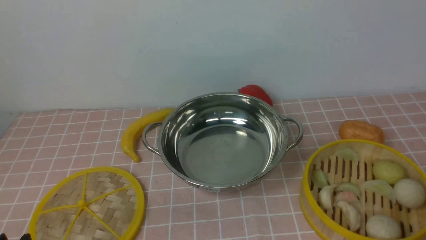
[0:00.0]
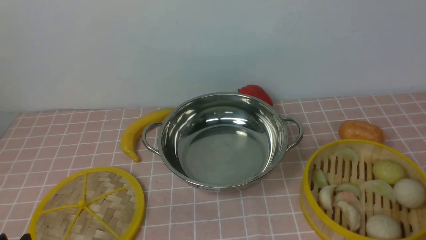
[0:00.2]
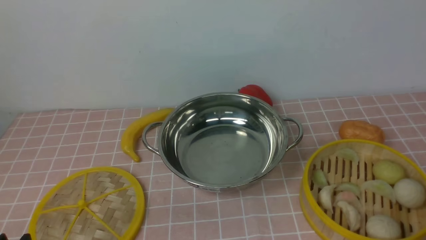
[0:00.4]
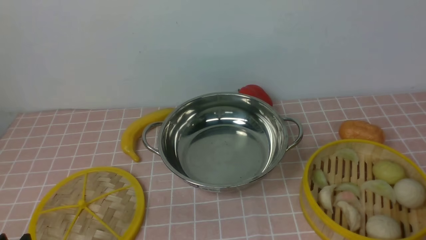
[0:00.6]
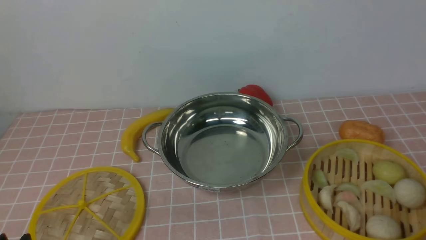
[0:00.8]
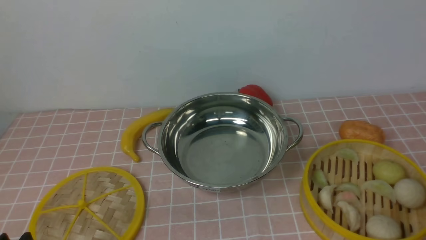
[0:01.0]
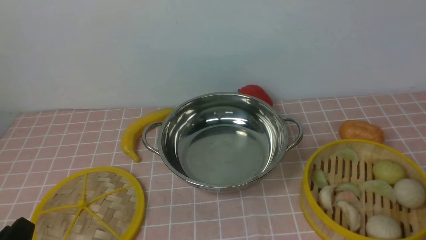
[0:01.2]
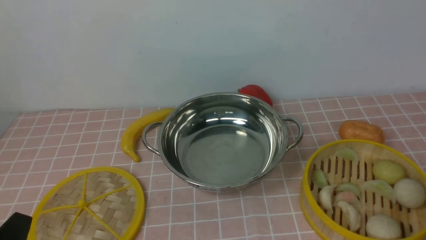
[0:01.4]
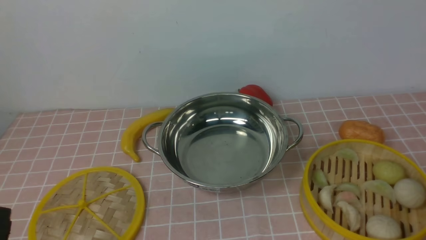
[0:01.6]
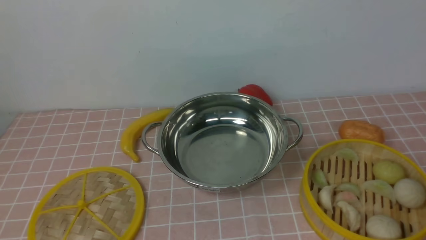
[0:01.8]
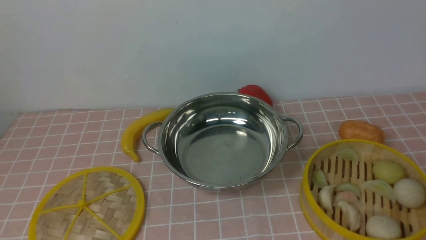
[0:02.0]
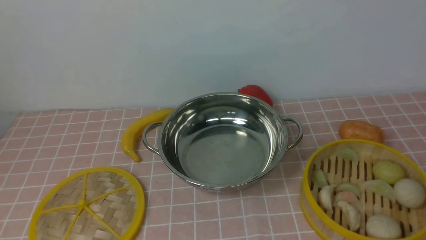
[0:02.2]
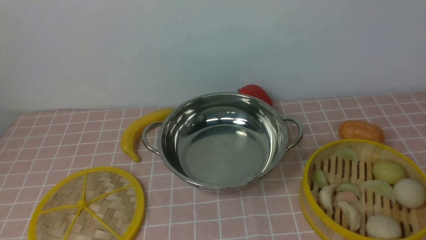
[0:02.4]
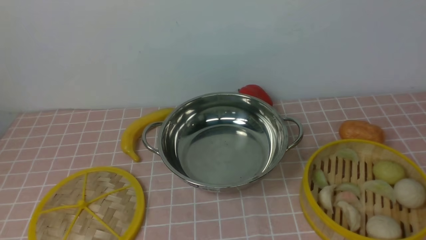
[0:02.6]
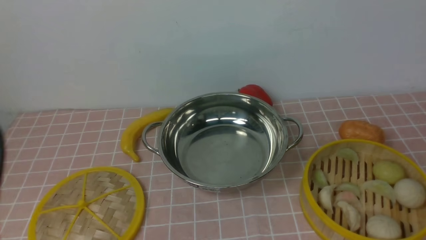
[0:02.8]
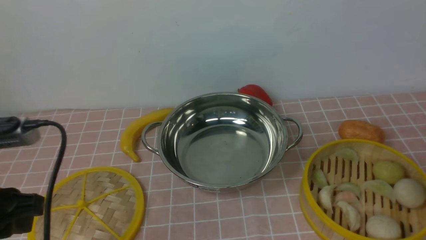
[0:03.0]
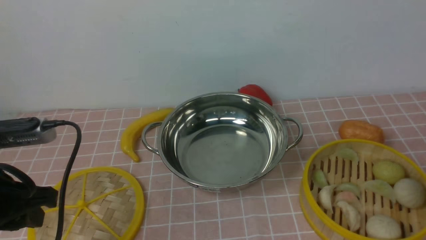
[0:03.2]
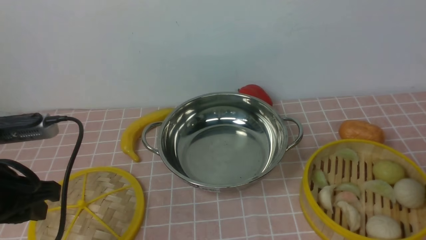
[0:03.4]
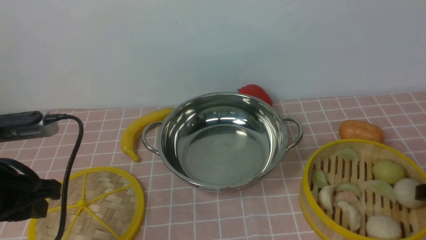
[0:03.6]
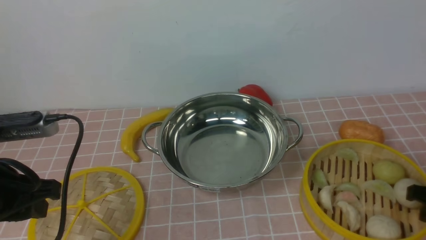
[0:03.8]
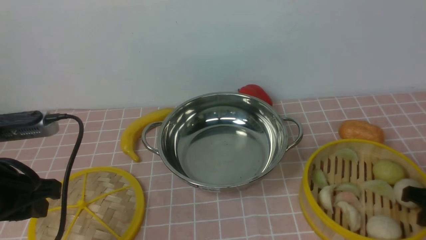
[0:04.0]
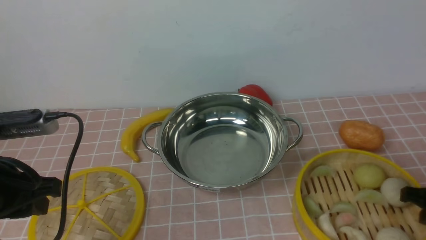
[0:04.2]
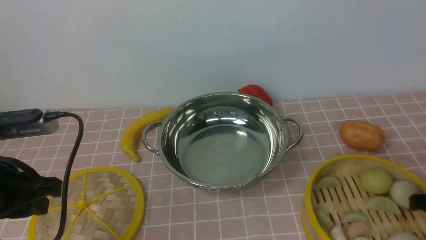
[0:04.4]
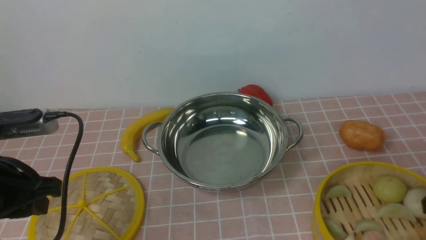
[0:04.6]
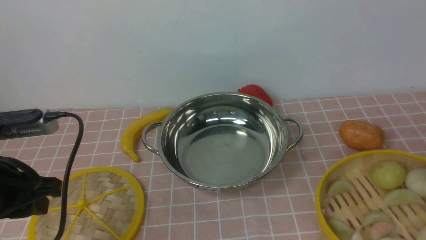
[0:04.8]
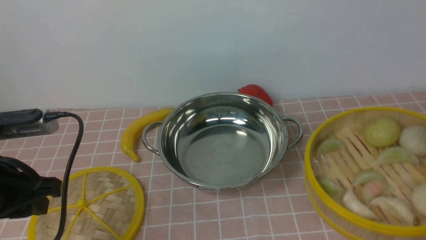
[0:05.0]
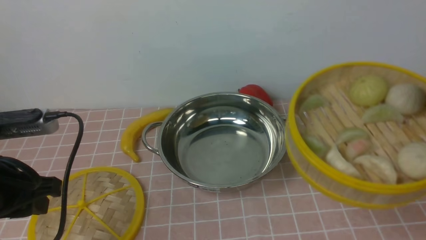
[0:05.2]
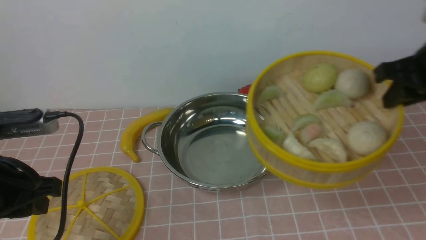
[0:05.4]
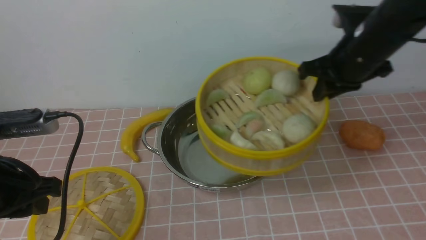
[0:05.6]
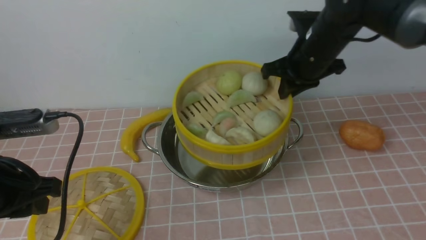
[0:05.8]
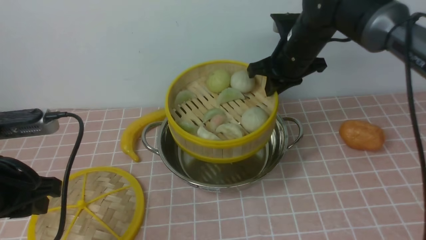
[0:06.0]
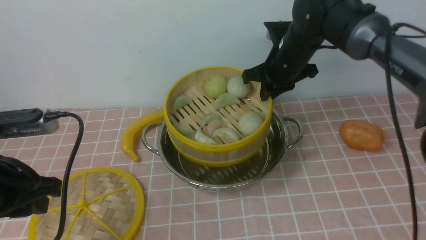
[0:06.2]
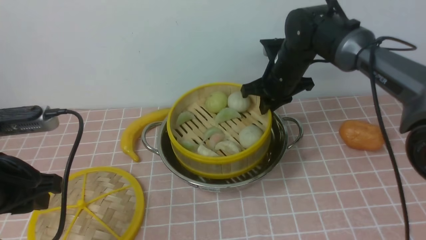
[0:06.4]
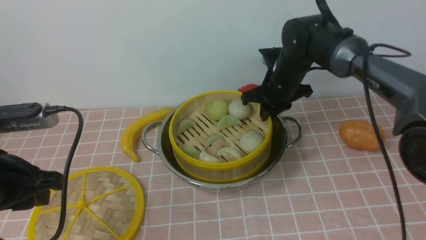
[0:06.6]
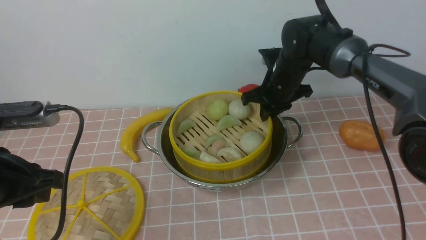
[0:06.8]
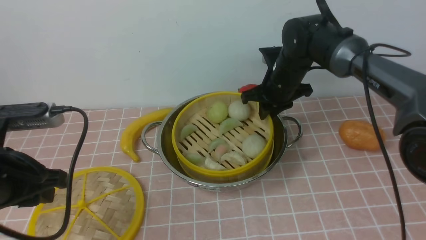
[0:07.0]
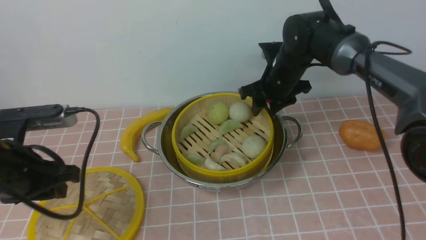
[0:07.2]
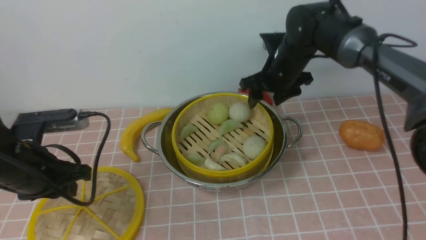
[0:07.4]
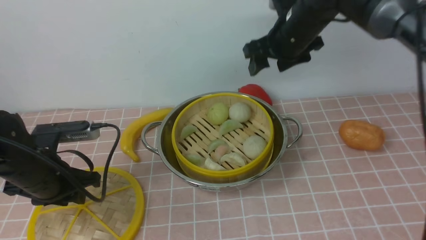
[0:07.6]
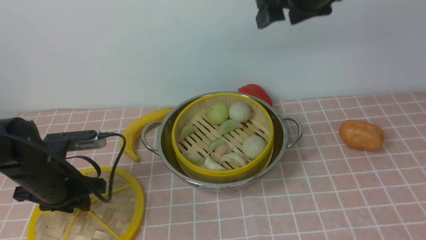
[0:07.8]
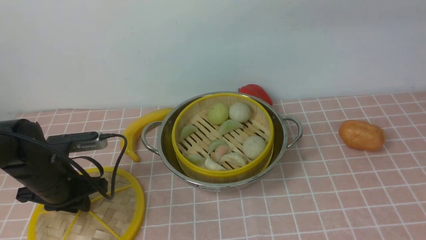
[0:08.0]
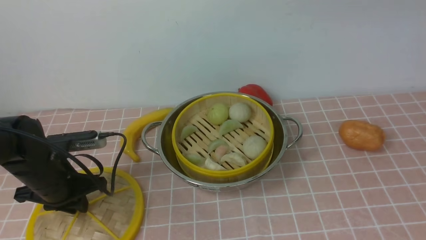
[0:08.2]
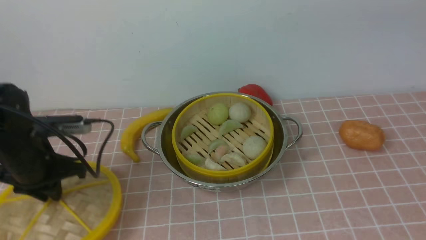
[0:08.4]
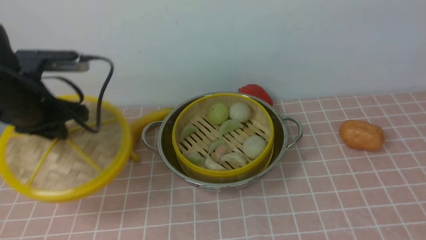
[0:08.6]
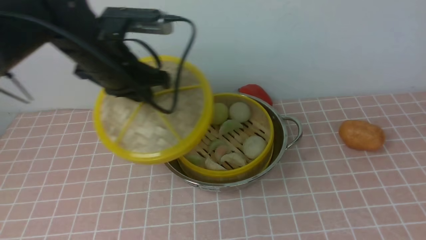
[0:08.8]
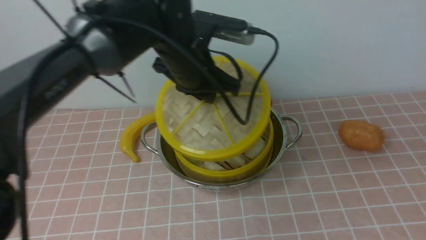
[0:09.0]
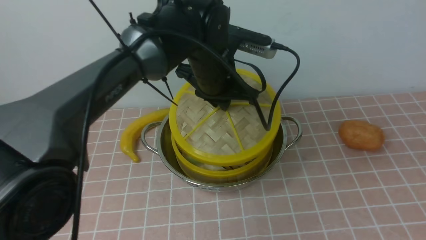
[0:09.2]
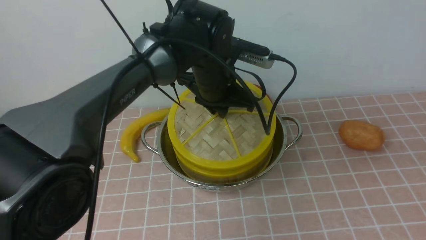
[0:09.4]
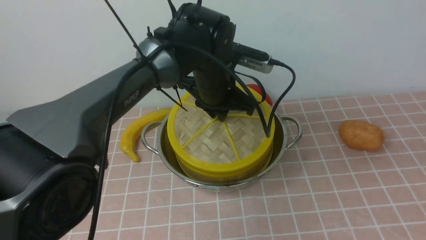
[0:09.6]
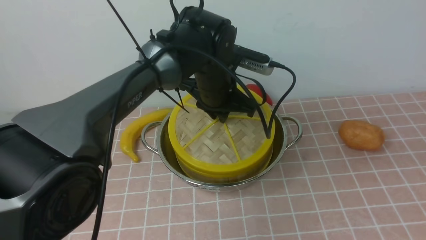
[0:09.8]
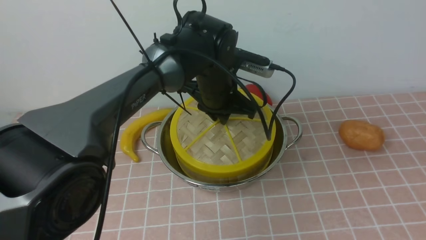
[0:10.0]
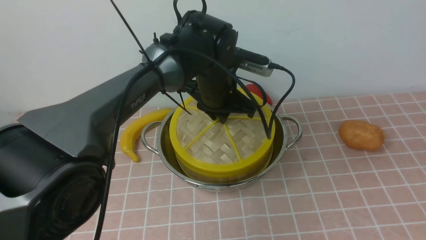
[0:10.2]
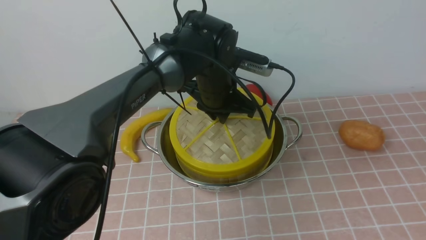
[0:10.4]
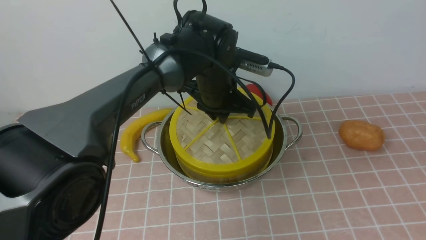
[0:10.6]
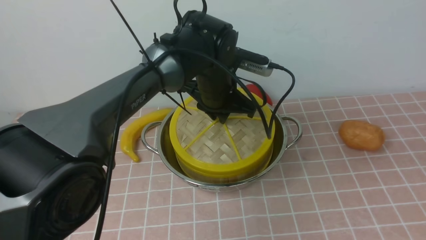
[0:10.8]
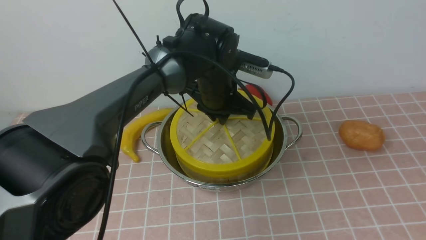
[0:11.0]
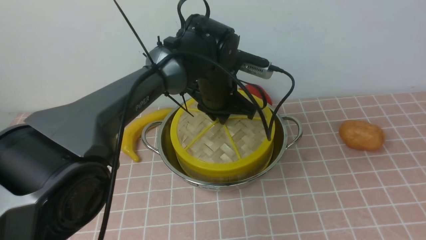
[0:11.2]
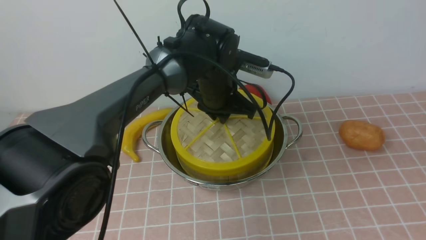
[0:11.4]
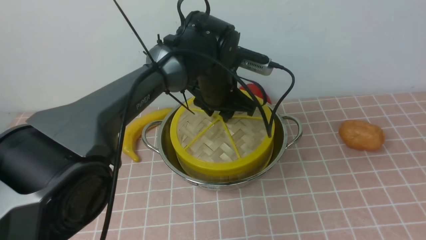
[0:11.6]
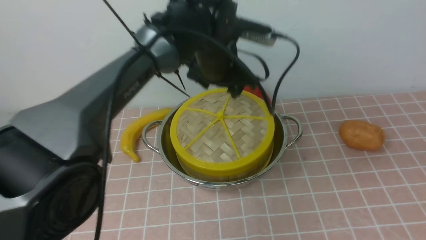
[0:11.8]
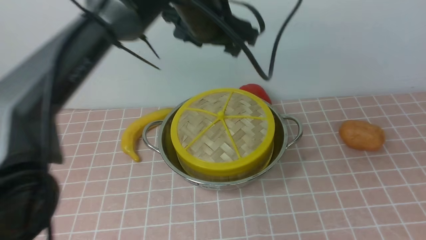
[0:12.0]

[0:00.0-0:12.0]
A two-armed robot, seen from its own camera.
Task of the whole recording: place the steamer in the pot on the pink tablecloth, and put the lid on the steamer.
Step, 0:00.0 to 0:04.8: use the right arm to lift the steamer closest to it.
Step, 0:05.0 to 0:07.2: use the right arm to put the steamer into the iron steamer pot in the middle.
Step, 0:07.4 to 0:08.2: use the left arm to lift the lid of the steamer.
Step, 0:08.4 to 0:11.6: use the left arm to place the steamer lid on the steamer.
0:01.6 to 0:03.0: The left gripper shifts some 15 cm forward and upward.
0:03.0 to 0:04.4: The right gripper goes approximately 10 cm downward.
0:04.4 to 0:06.0: The right gripper is displaced forward, to the left and upward by about 30 cm.
0:06.0 to 0:07.6: The left gripper is displaced downward and forward by about 15 cm; the right gripper is displaced upward by approximately 5 cm, and opens its fingers.
0:07.6 to 0:09.0: The left gripper goes some 25 cm to the right, forward and upward, while the right gripper travels backward and to the right by about 40 cm.
0:09.0 to 0:10.4: The left gripper moves downward, about 5 cm.
0:10.4 to 0:12.0: The left gripper shifts roughly 15 cm upward, and opens.

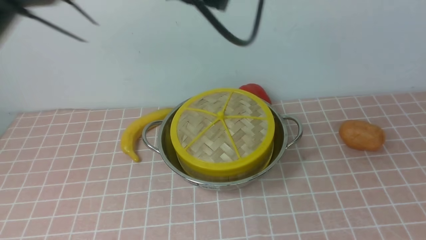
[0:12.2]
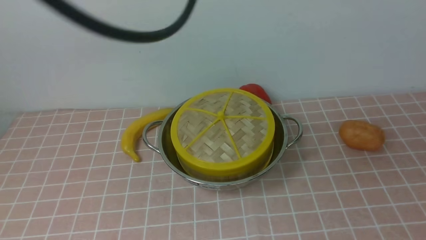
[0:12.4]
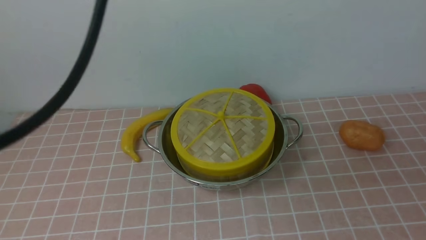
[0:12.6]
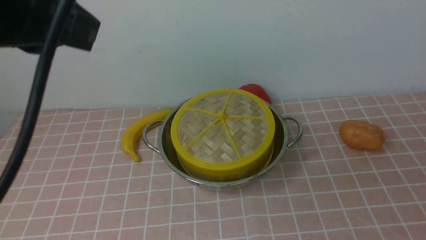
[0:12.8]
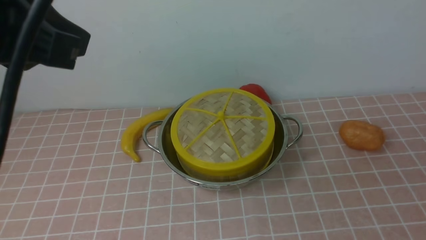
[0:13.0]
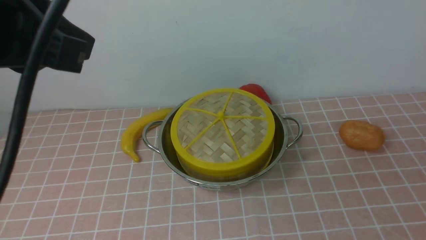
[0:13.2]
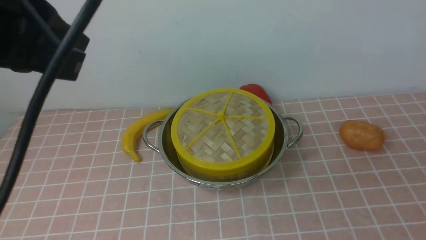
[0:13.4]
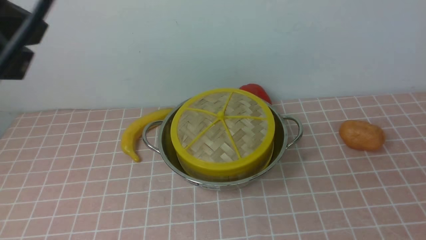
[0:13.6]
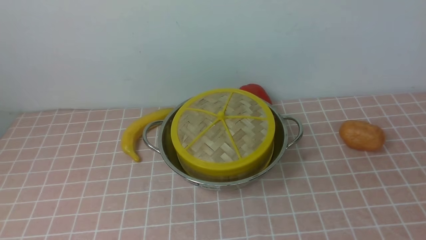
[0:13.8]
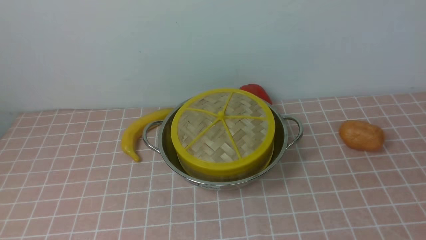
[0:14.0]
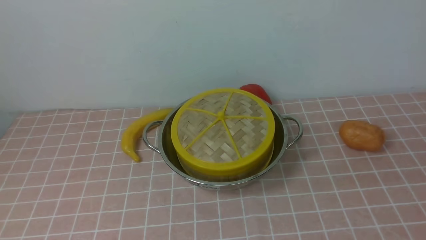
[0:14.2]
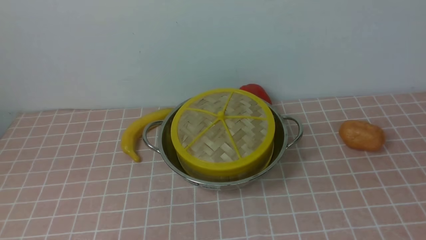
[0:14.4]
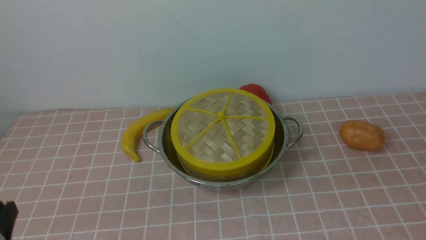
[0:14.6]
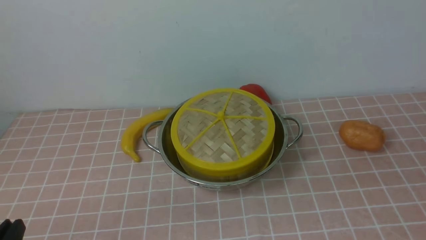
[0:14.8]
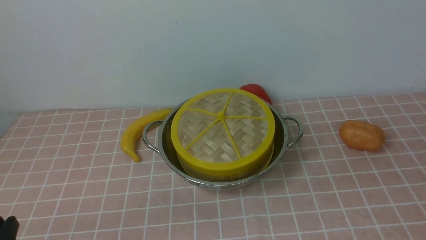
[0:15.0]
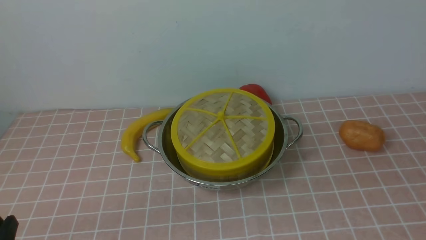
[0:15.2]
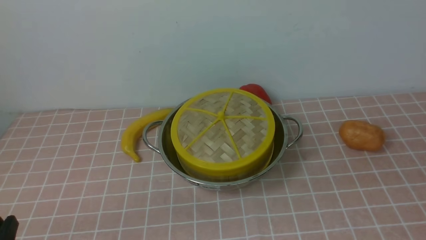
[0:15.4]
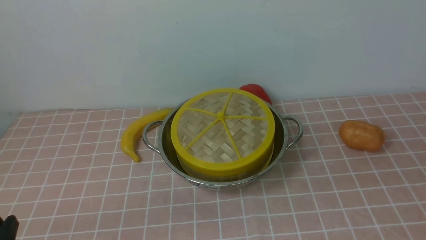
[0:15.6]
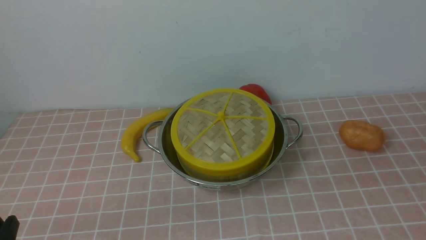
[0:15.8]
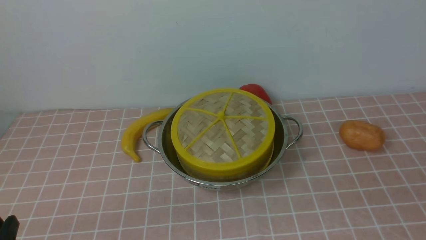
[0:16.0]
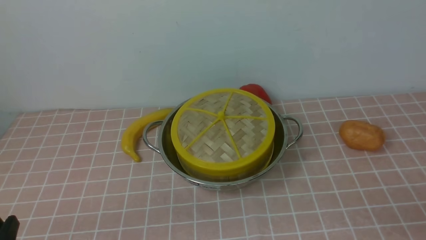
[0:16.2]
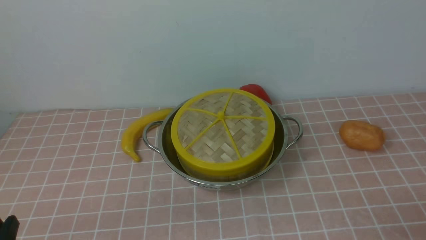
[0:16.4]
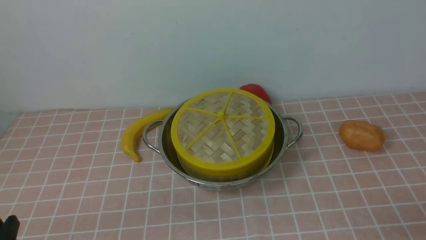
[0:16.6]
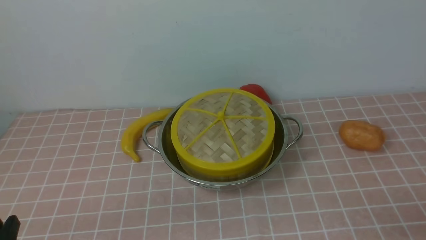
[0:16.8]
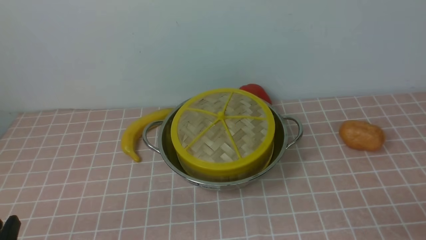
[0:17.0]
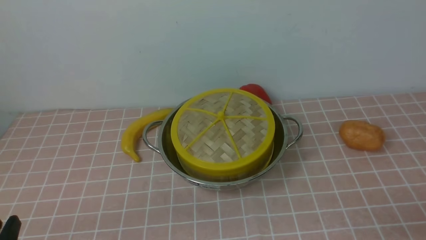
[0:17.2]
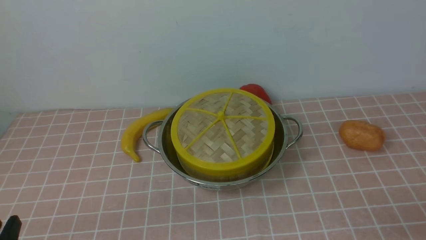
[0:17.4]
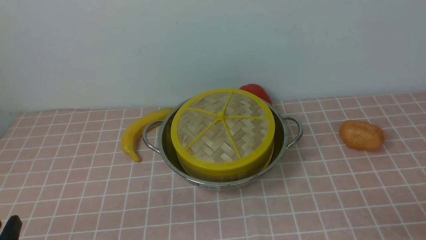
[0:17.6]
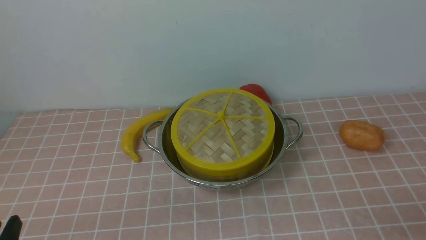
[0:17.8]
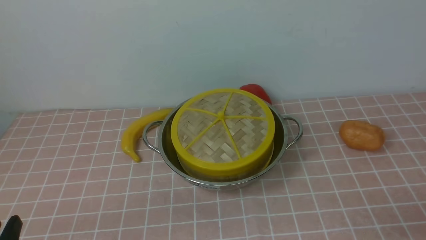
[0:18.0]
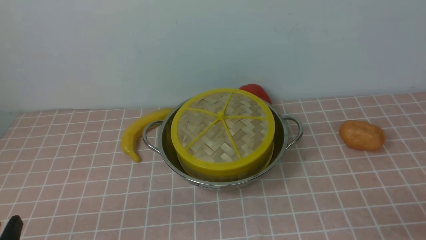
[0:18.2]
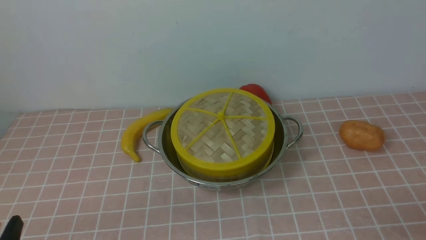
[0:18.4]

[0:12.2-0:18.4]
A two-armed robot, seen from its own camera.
Task of the whole recording: place the steamer in the pot on the pink tablecloth, and put the lid on the steamer.
0:12.2 to 0:13.8: The left gripper travels backward and to the left by approximately 30 cm, and closes, while the right gripper is displaced downward by some 5 cm.
0:13.8 to 0:15.4: The left gripper moves downward, approximately 30 cm.
0:16.8 to 0:18.4: Both grippers stay about where they are.
